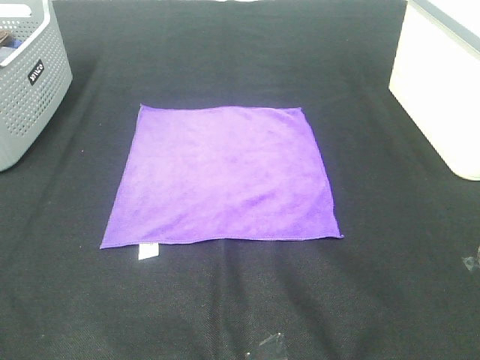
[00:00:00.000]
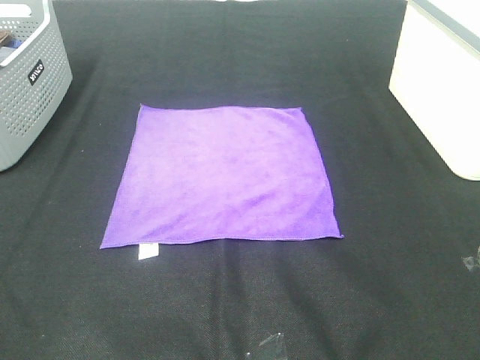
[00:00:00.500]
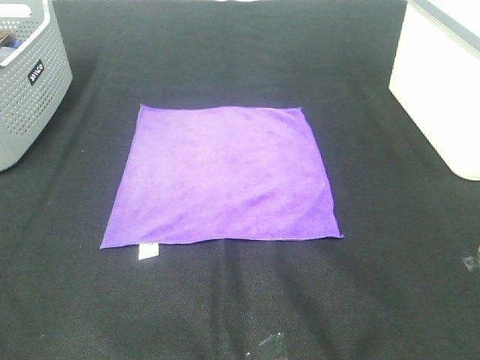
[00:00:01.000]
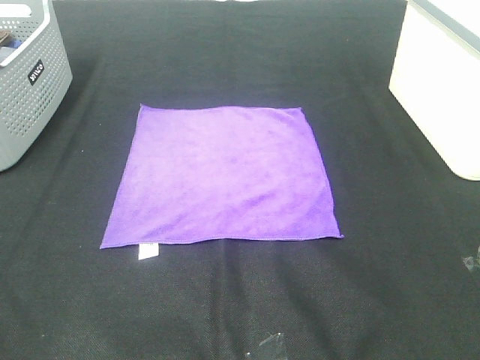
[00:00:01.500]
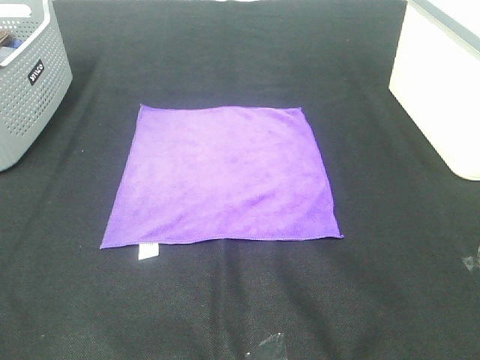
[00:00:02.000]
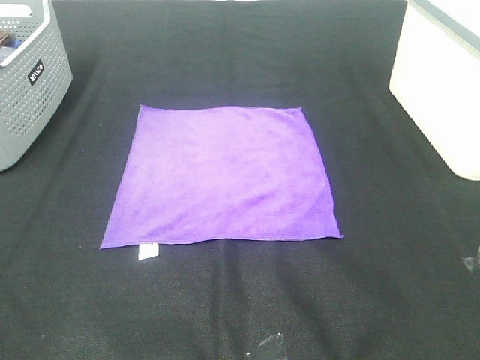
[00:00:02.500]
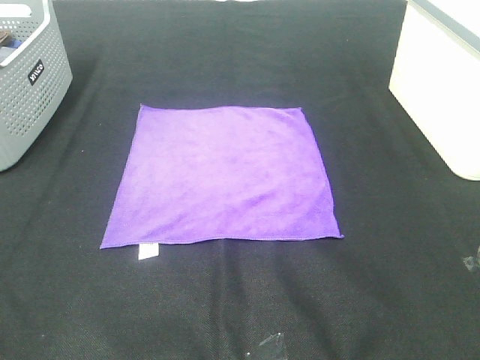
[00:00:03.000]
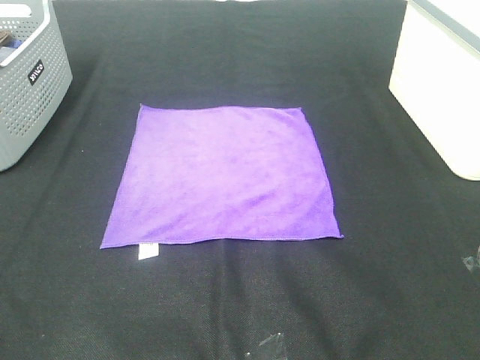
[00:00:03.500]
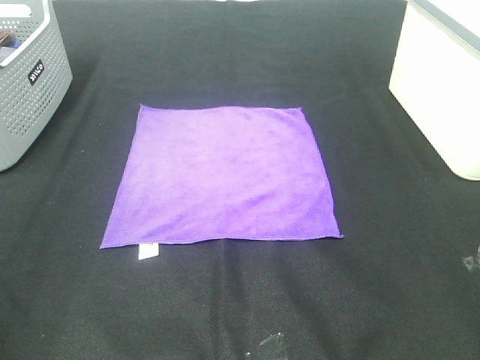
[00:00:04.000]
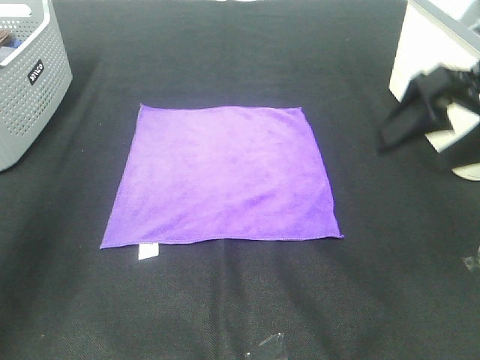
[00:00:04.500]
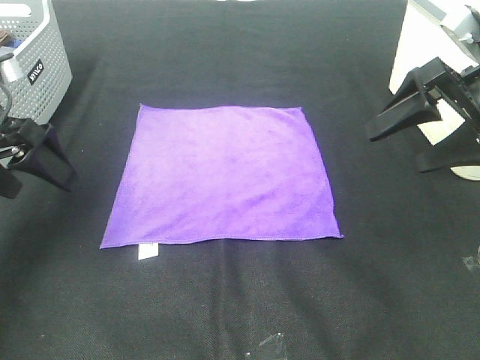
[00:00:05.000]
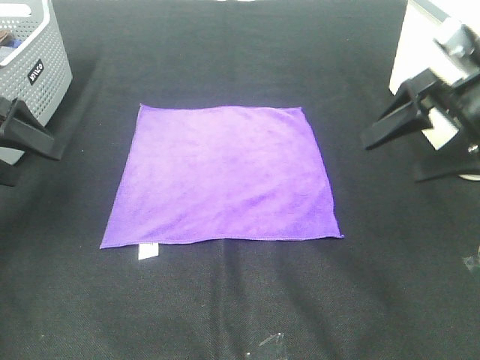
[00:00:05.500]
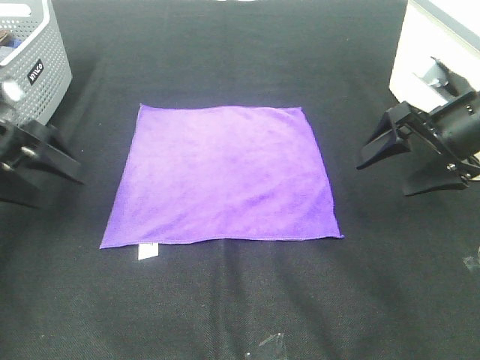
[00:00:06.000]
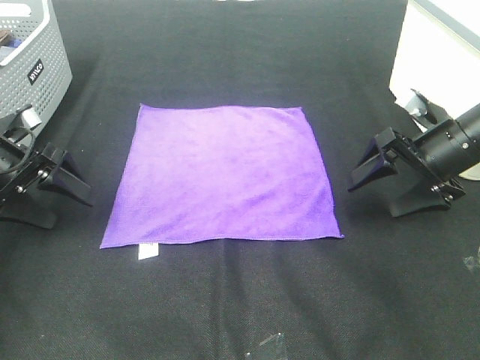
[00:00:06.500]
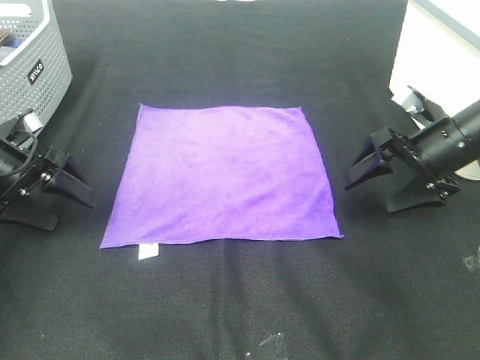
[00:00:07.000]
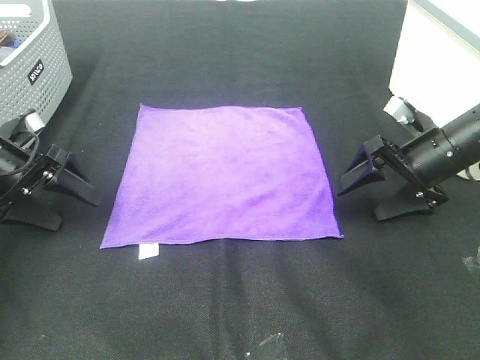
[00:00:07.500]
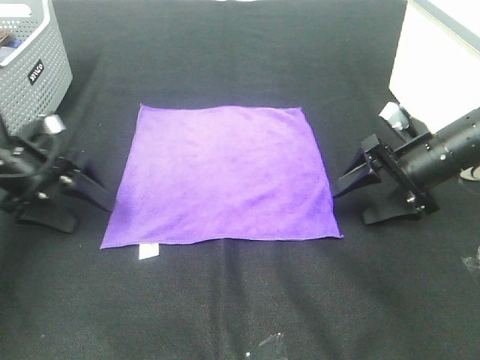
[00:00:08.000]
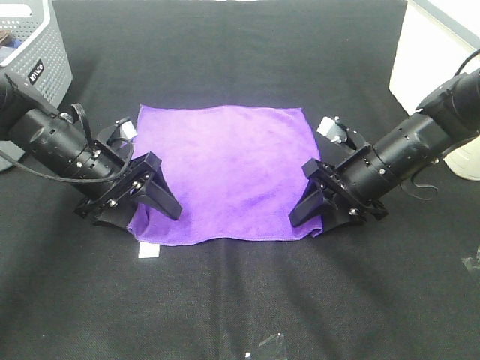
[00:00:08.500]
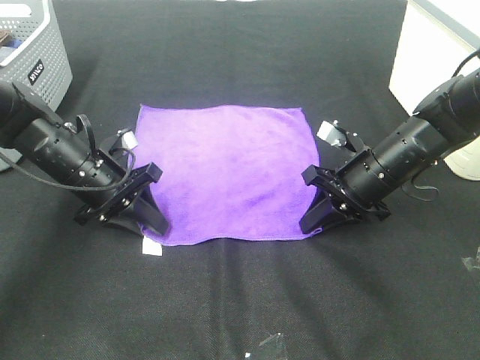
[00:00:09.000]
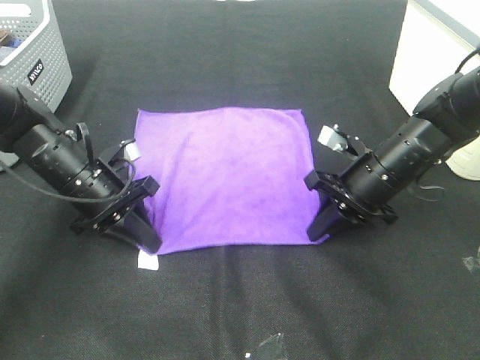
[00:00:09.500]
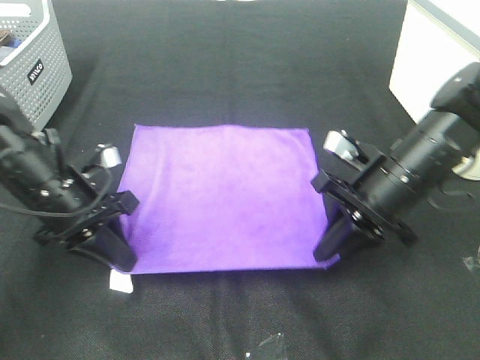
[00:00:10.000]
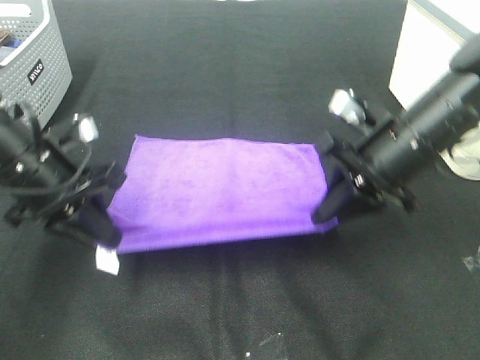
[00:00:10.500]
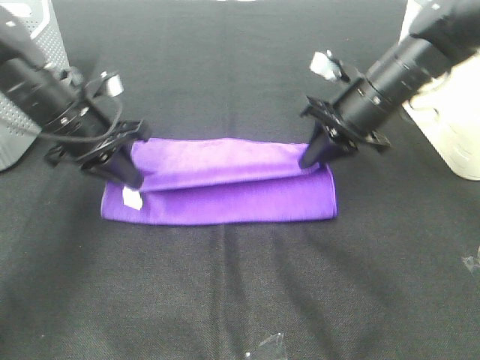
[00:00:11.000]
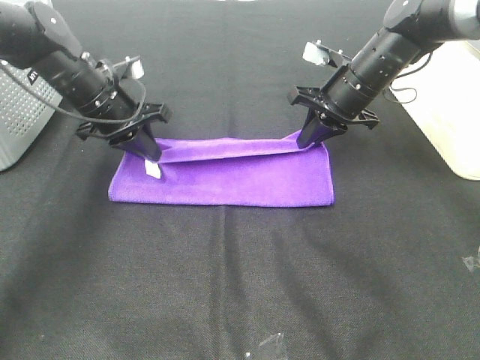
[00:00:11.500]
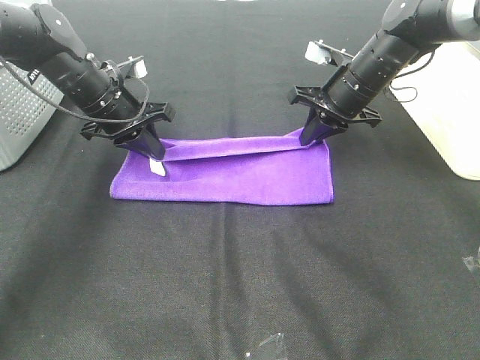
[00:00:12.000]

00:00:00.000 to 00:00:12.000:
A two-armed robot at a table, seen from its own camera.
Task of the whole recording: Fold towels.
Step, 00:00:00.000 to 00:00:09.000: Left hand: grab the bottom left corner of purple towel.
Step, 00:00:00.000 to 00:00:09.000: Right hand: grab the bottom right corner of purple towel.
00:00:00.000 to 00:00:02.000: Both grippers stay put.
00:00:04.000 to 00:00:06.000: Both grippers move forward and downward, some 30 cm.
00:00:06.000 to 00:00:08.000: The left gripper changes place by some 5 cm; the right gripper heads downward, covering roughly 10 cm.
00:00:08.000 to 00:00:10.000: The left gripper goes about 10 cm to the right and backward, and closes up, while the right gripper moves to the left and backward, about 10 cm, and closes its fingers.
00:00:10.000 to 00:00:12.000: The two grippers go some 15 cm forward.

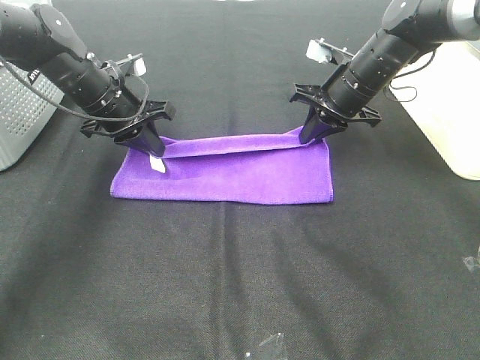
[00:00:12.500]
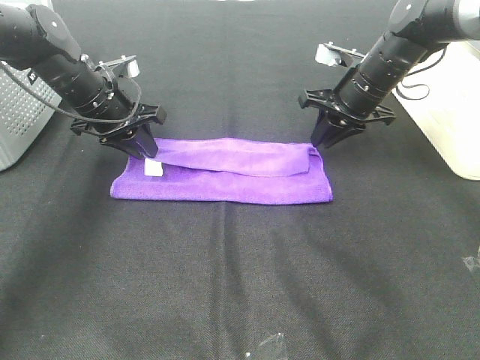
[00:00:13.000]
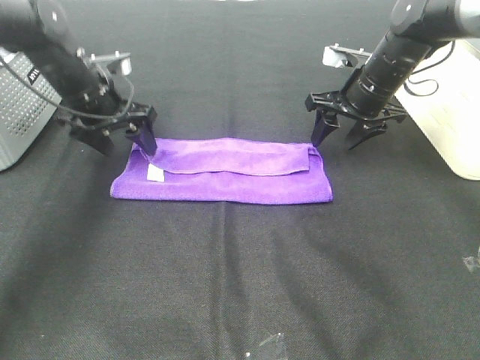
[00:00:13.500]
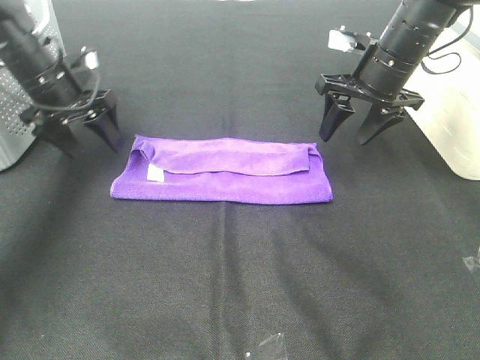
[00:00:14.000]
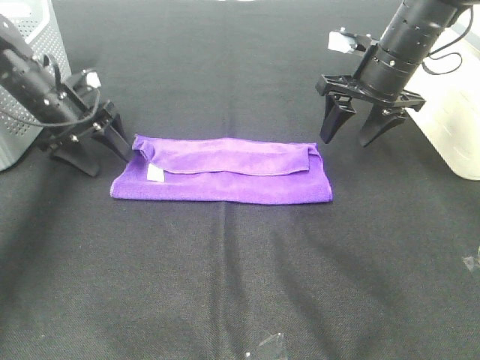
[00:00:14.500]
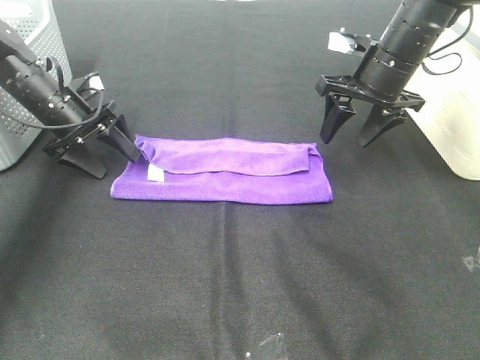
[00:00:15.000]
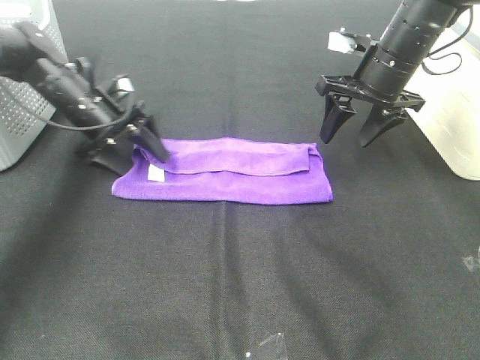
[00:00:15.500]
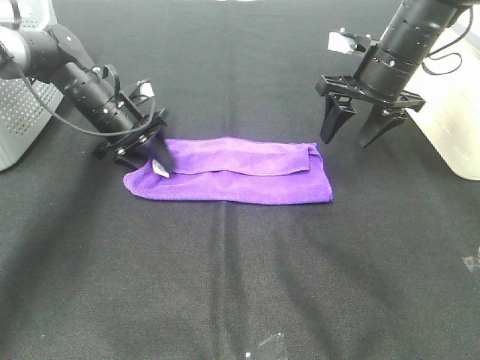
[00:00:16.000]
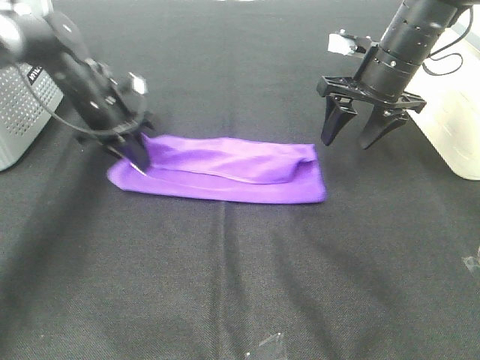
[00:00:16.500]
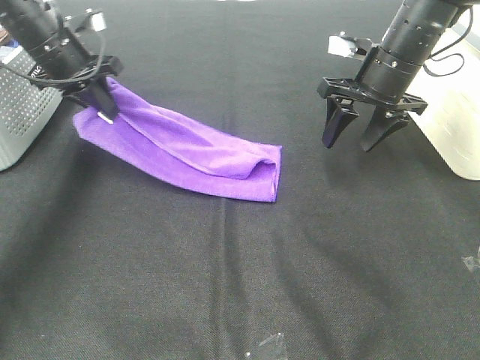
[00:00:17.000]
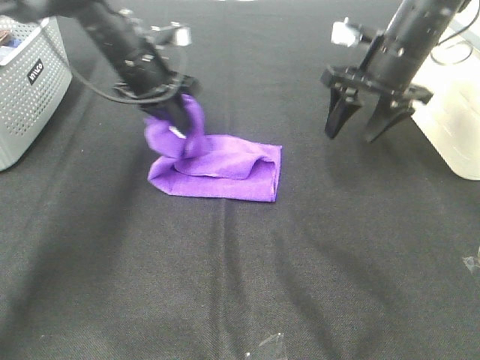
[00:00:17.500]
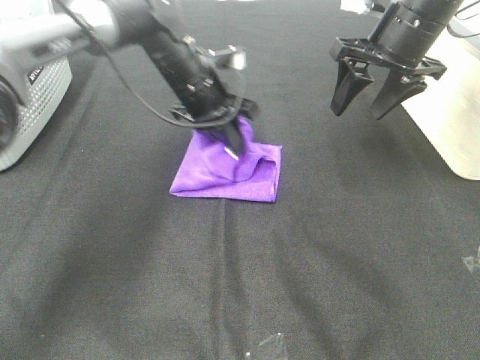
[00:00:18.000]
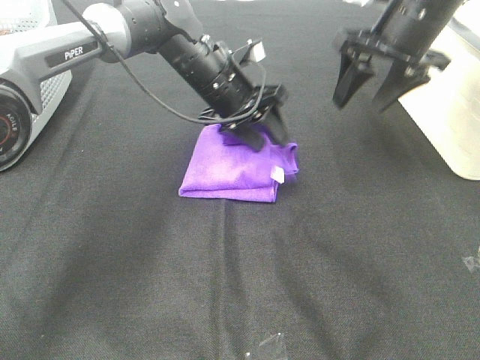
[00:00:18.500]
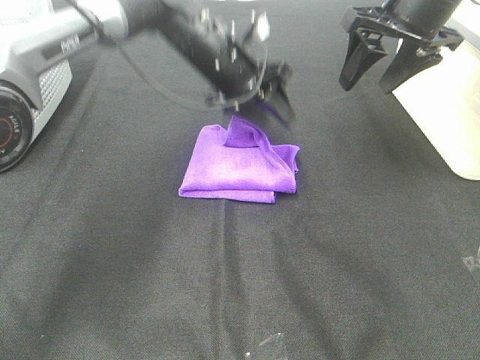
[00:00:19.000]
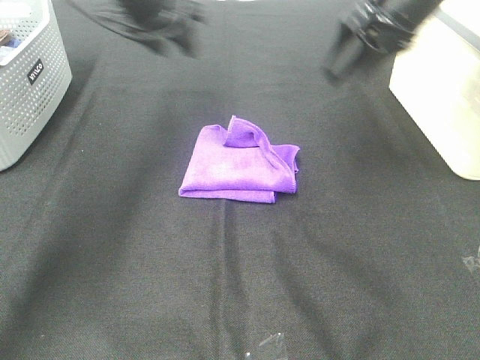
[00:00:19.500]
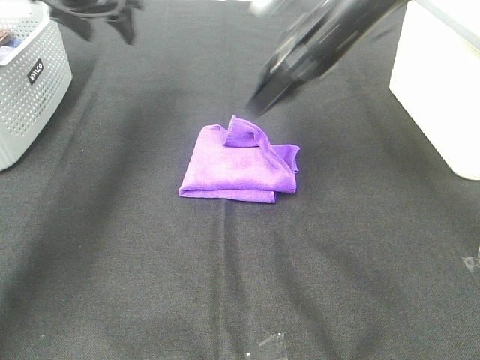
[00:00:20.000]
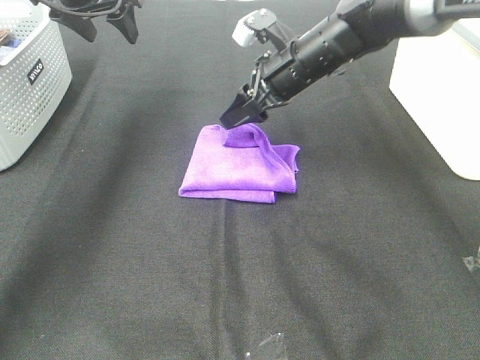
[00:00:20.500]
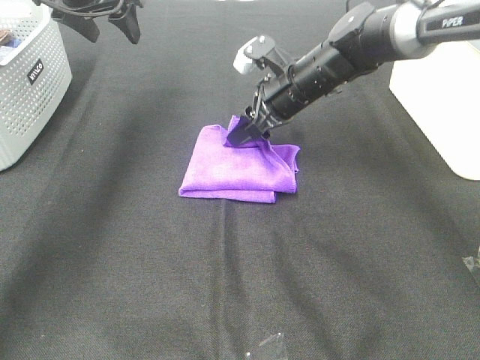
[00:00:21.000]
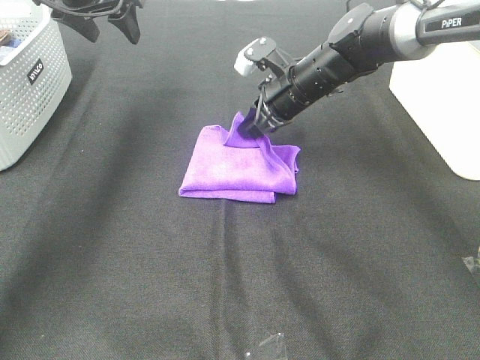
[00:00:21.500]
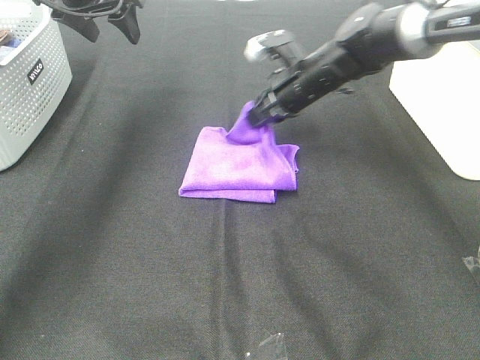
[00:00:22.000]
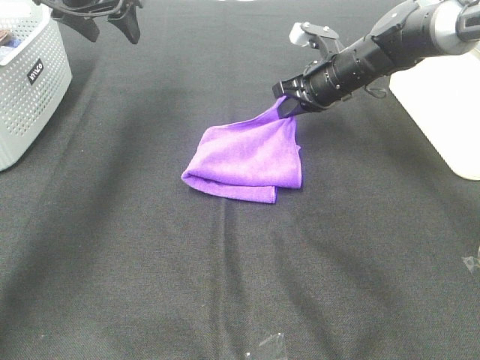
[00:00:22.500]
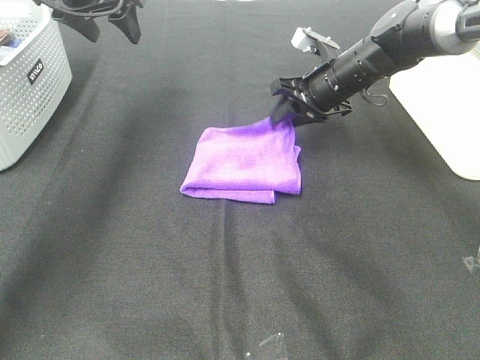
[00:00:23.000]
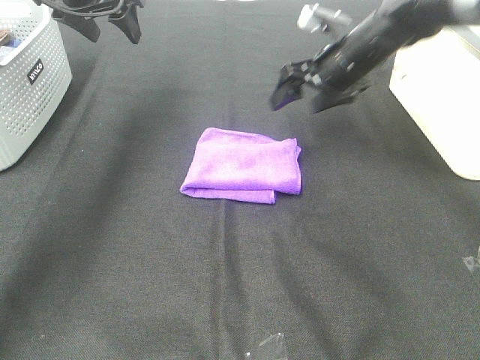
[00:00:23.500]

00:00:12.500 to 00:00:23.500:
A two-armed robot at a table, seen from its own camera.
Task of the whole recording: Fold towels.
Step, 00:00:13.000 to 00:00:18.000: Left hand: fold the purple towel from left to right.
Step, 00:00:18.500 to 00:00:21.500: Right hand: adjust the purple towel.
00:00:12.500 to 00:00:14.500: The right gripper changes place by some 5 cm, and opens up. Meanwhile the left gripper moves to the left, roughly 10 cm, and opens its fingers.
00:00:14.500 to 00:00:16.000: The left gripper goes some 5 cm to the right, and closes its fingers.
00:00:16.000 to 00:00:18.000: The left gripper travels to the right and upward by roughly 15 cm. The right gripper goes roughly 5 cm upward.
00:00:18.000 to 00:00:20.000: The right gripper is displaced to the left by roughly 10 cm; the left gripper is displaced to the left and upward by about 20 cm, and opens its fingers.
00:00:20.000 to 00:00:21.500: The right gripper is displaced downward by some 5 cm, and closes its fingers.
00:00:21.500 to 00:00:23.500: The right gripper heads to the right, covering about 5 cm, and opens up.

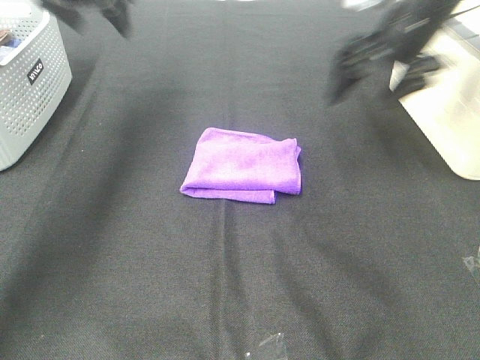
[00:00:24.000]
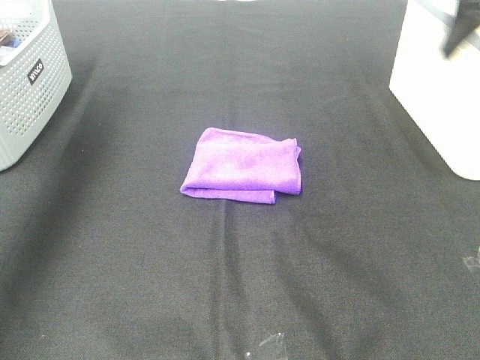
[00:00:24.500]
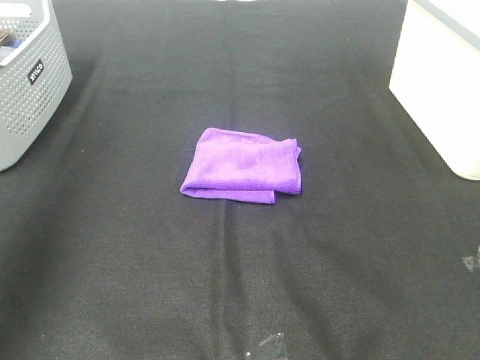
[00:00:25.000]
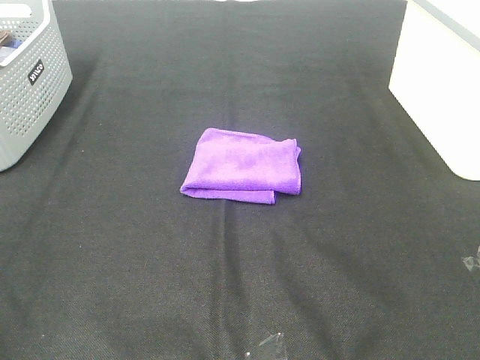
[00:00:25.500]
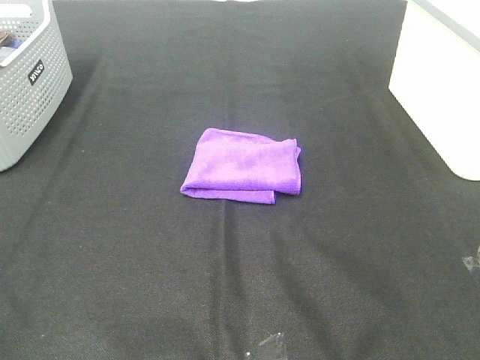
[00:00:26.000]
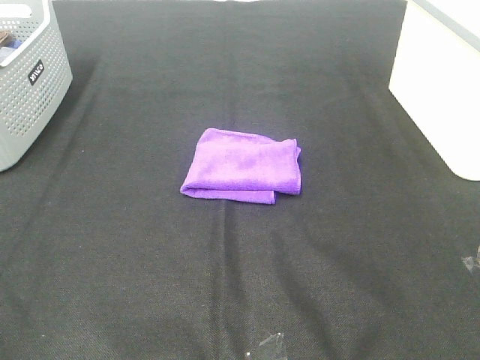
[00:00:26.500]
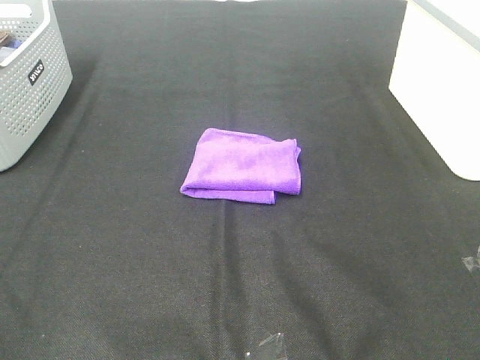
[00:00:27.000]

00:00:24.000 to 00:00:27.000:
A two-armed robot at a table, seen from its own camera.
Task of the whole recording: Fold towels.
00:00:24.000 to 00:00:25.500: Both grippers move backward, about 50 cm.
